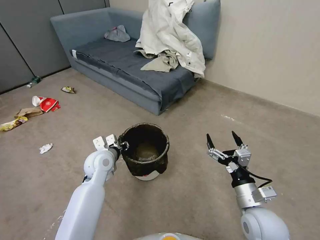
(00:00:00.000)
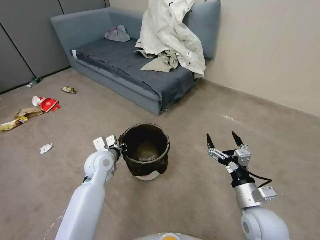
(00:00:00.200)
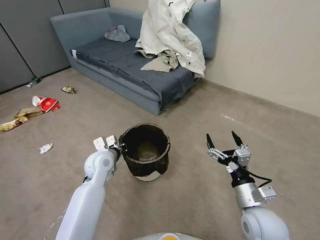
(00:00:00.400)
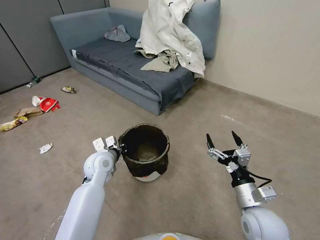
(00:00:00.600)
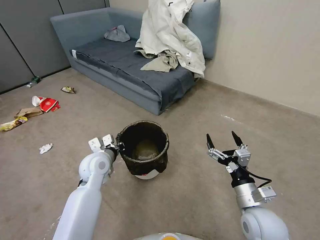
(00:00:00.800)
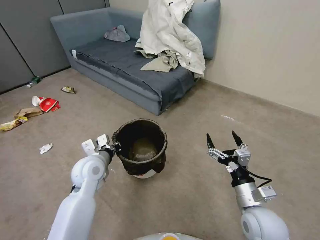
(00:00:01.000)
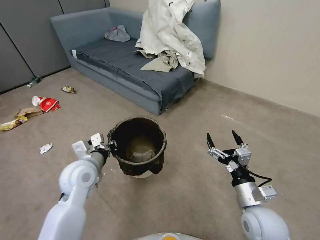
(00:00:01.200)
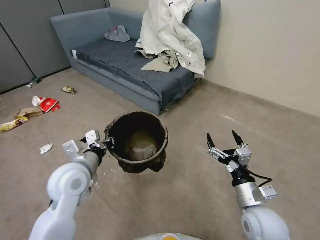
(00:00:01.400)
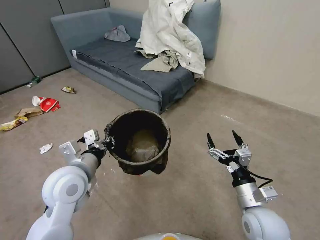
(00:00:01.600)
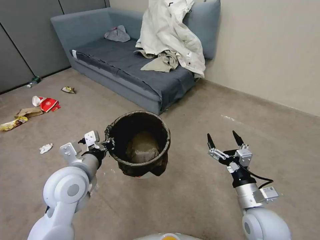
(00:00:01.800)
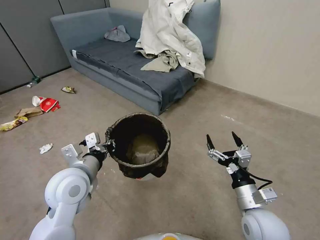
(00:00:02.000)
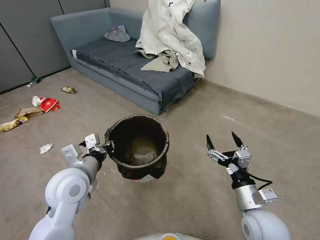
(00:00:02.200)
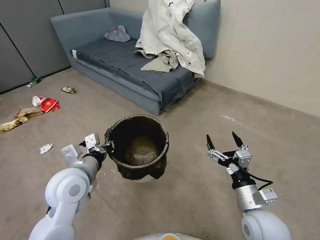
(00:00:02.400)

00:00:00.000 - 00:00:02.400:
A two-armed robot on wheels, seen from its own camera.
Task of the whole recording: Pick up the trash can from the floor.
00:00:00.000 - 00:00:01.200: The left gripper heads backward and upward, covering approximately 10 cm.
00:00:01.200 - 00:00:02.400: The left gripper shifts by about 5 cm.

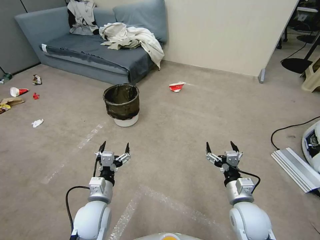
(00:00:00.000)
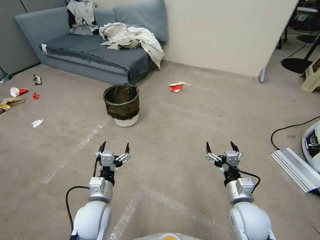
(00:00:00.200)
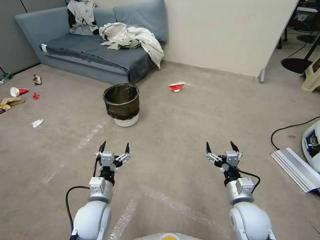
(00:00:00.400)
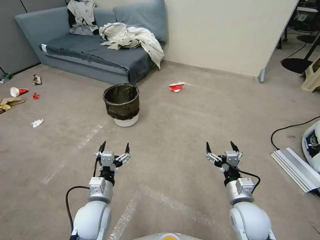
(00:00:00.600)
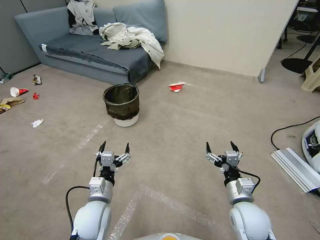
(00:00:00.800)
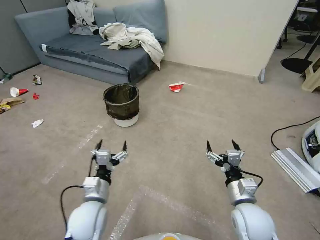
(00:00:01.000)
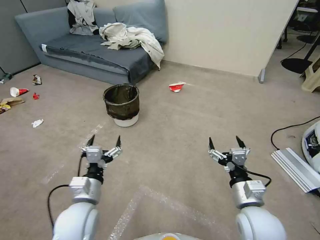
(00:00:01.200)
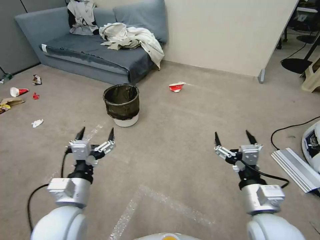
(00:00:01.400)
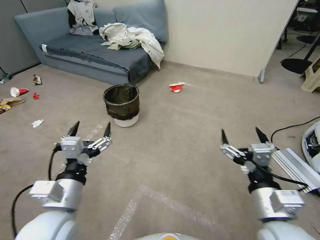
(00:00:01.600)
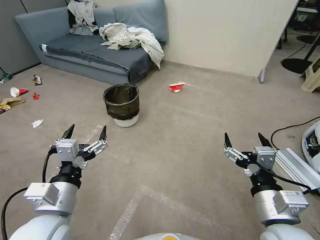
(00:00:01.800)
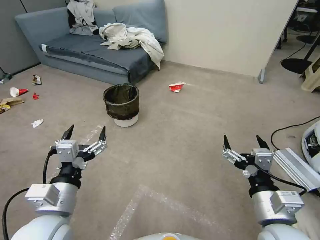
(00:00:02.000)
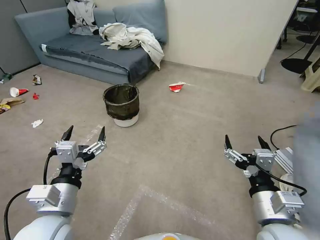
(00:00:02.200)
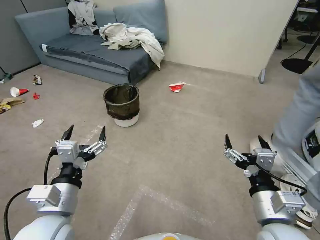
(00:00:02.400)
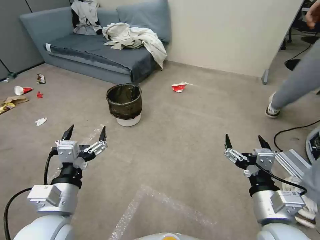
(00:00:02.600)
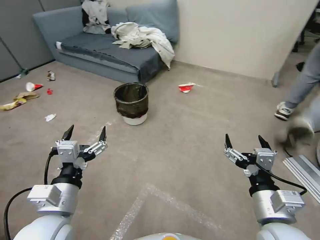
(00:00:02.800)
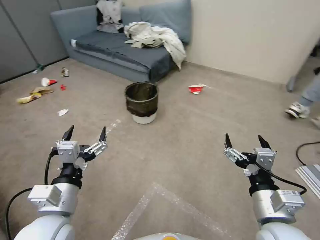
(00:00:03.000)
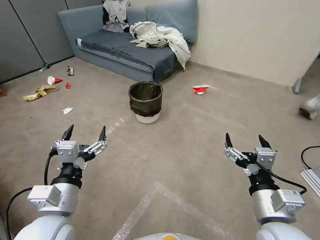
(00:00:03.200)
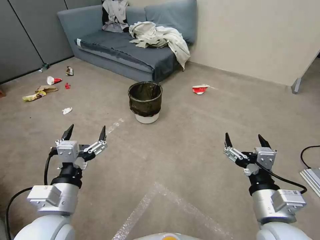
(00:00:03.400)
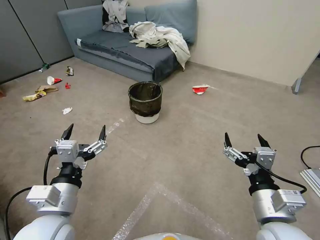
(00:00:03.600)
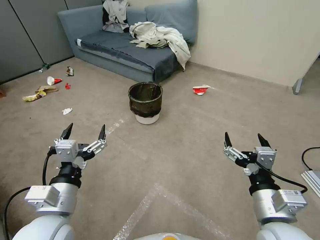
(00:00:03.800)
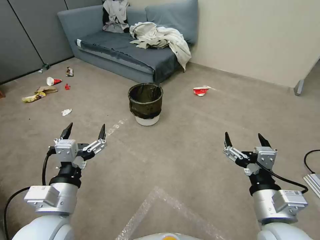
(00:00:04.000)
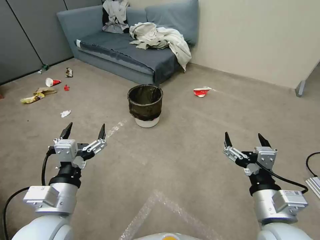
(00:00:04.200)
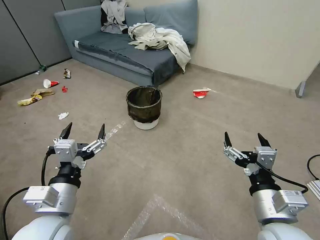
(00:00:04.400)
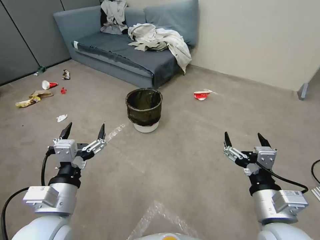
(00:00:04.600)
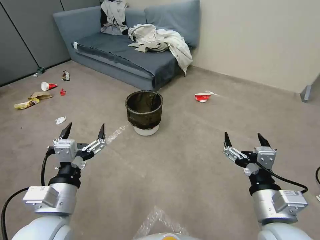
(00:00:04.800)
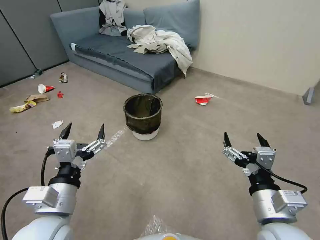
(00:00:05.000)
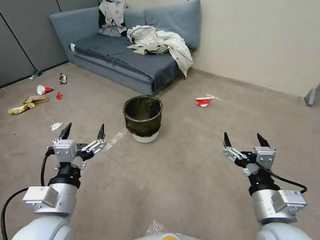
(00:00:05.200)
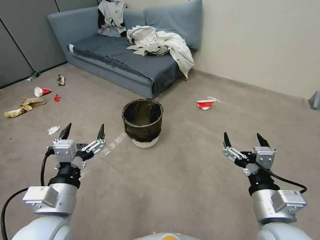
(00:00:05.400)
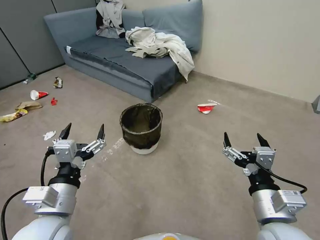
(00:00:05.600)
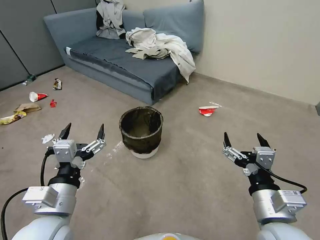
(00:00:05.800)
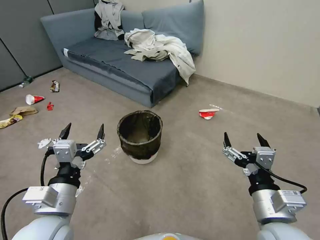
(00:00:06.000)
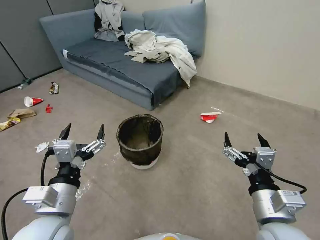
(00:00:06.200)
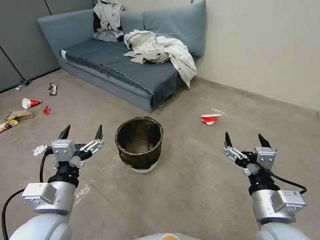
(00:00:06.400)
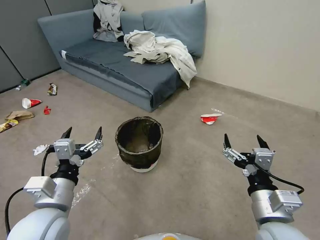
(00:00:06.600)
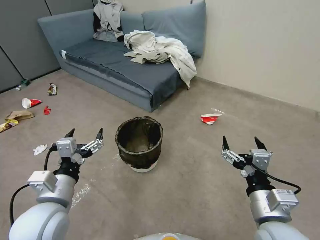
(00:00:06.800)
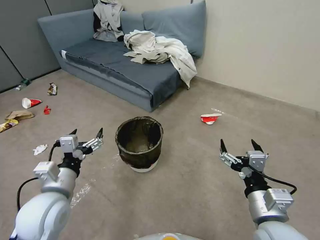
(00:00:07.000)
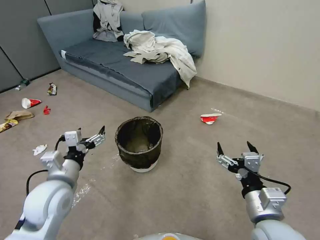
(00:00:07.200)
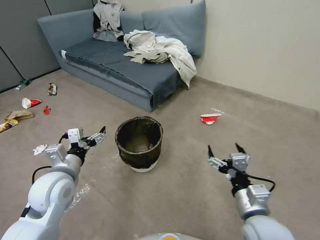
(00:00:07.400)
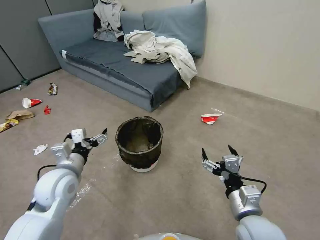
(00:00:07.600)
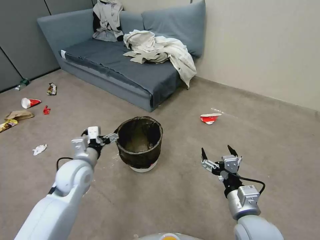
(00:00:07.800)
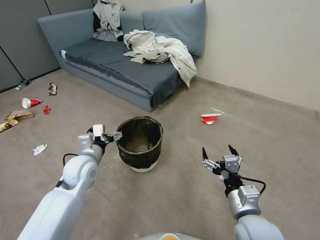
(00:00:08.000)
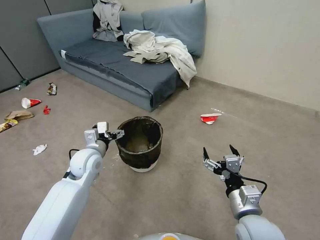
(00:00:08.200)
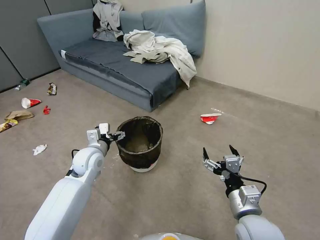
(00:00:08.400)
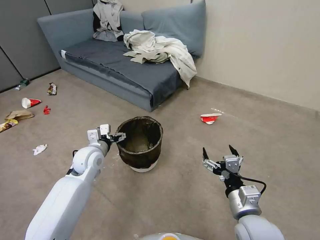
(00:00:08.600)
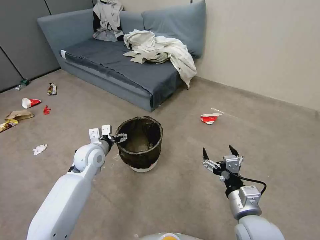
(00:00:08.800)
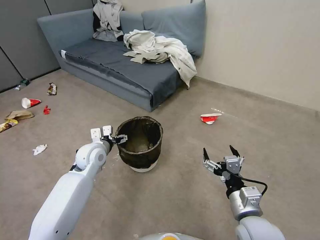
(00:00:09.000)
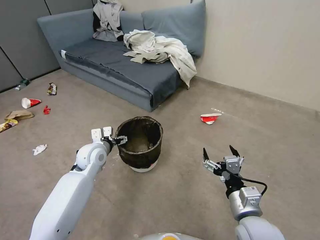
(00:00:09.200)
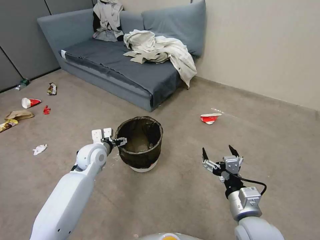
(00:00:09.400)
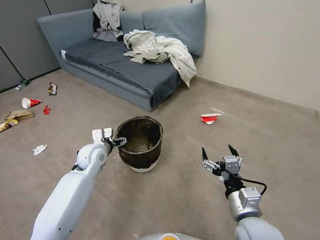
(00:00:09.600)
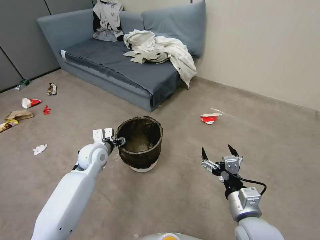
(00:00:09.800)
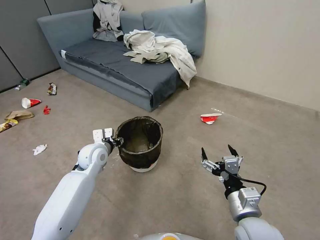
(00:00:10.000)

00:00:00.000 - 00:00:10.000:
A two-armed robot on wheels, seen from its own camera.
Task of the whole recording: Pick up the trash can from the floor.
00:00:01.400 - 00:00:02.800: The left gripper changes place by approximately 5 cm.
00:00:05.800 - 00:00:07.200: The left gripper travels forward by about 10 cm.
00:00:07.200 - 00:00:08.600: The left gripper moves forward and downward, some 15 cm.
00:00:08.600 - 00:00:10.000: The left gripper closes up.

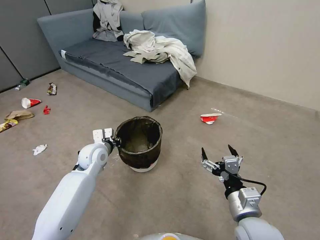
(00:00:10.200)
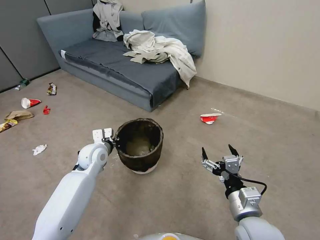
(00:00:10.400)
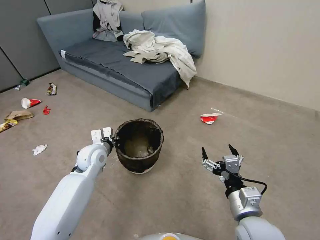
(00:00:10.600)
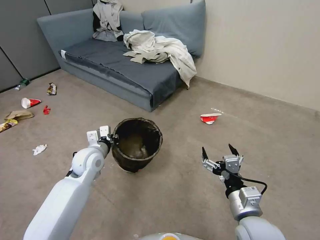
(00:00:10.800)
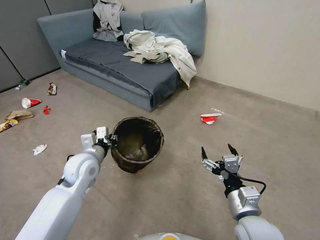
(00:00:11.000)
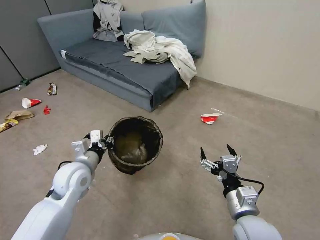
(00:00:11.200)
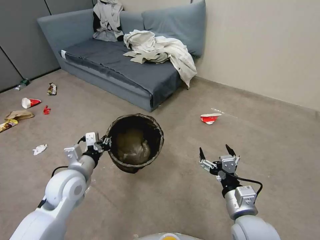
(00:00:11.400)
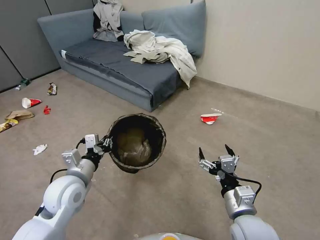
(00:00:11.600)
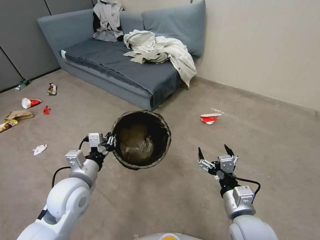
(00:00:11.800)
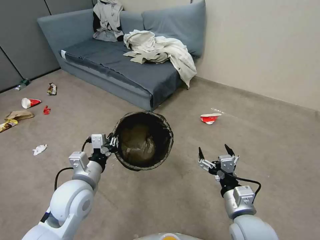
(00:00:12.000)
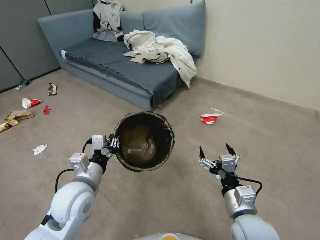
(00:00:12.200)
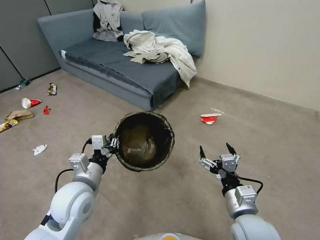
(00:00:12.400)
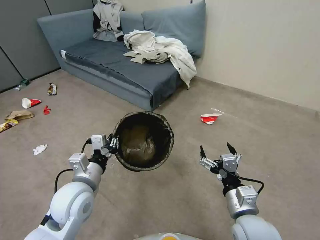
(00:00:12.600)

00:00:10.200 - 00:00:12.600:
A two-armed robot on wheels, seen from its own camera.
Task of the whole recording: Pick up the trash can from the floor.
00:00:10.200 - 00:00:11.400: The left gripper travels backward by roughly 10 cm.
00:00:11.400 - 00:00:12.600: The left gripper ends up approximately 5 cm from where it was.
